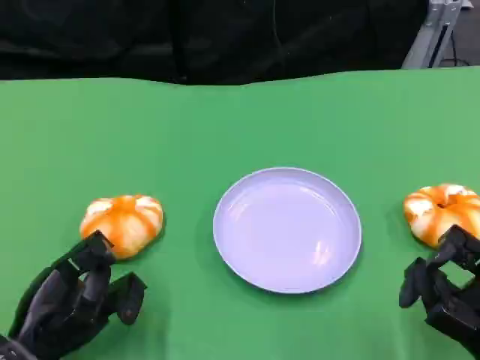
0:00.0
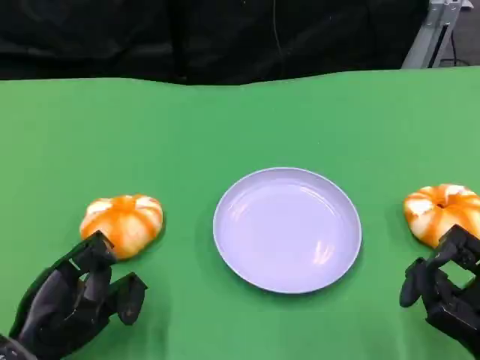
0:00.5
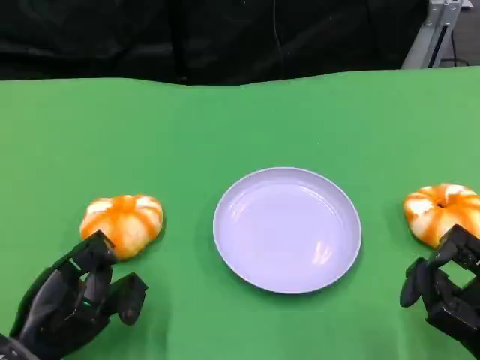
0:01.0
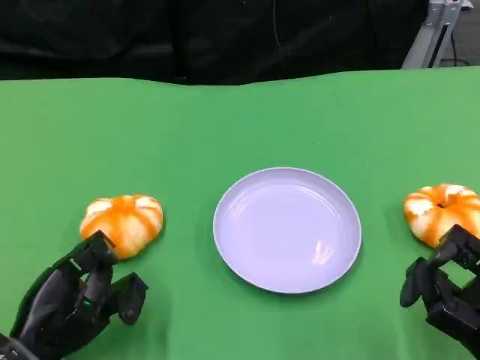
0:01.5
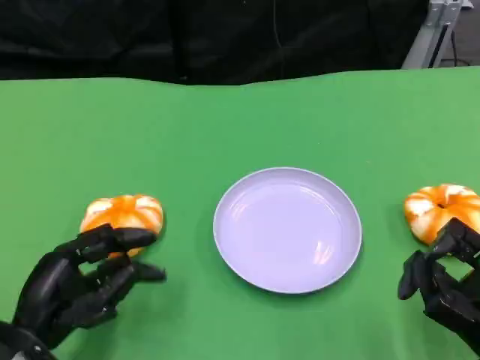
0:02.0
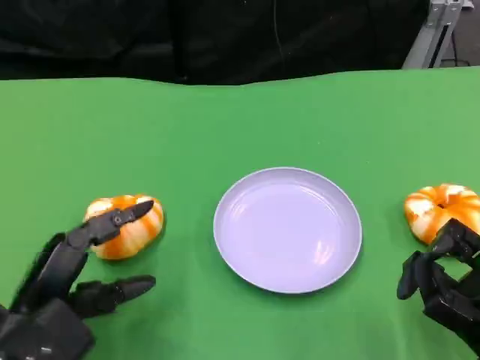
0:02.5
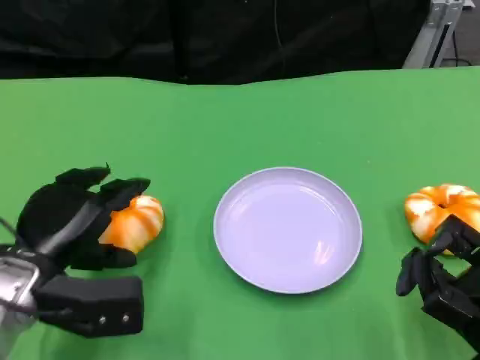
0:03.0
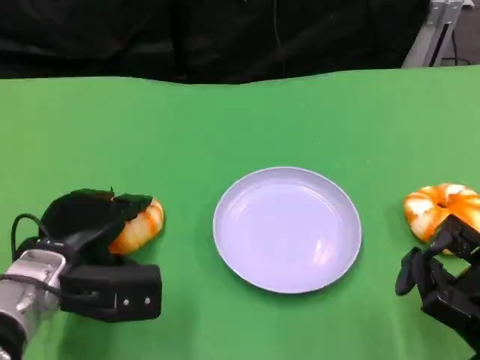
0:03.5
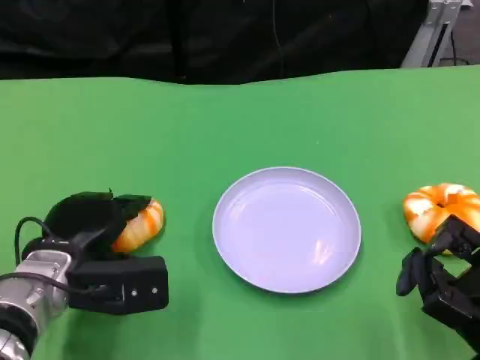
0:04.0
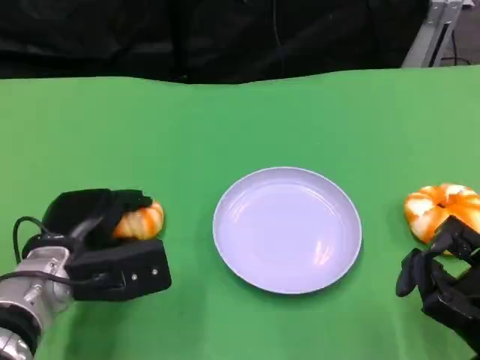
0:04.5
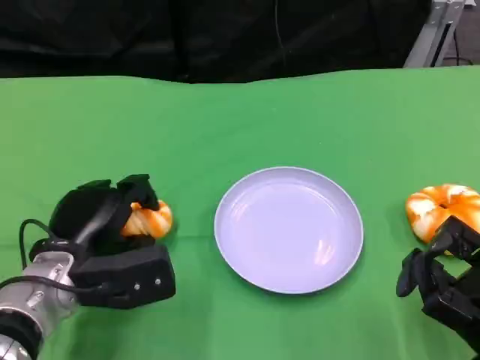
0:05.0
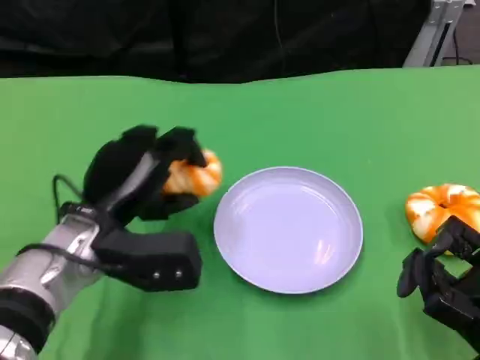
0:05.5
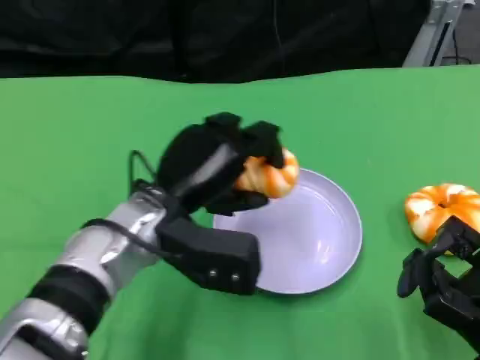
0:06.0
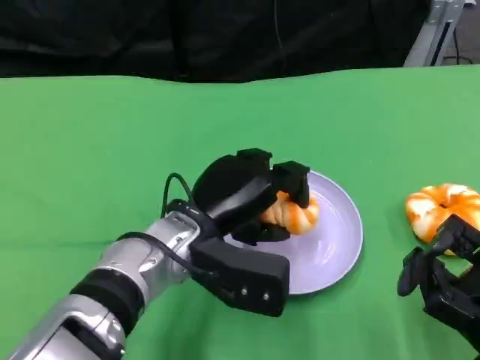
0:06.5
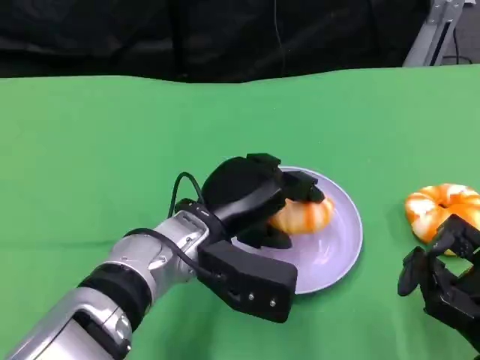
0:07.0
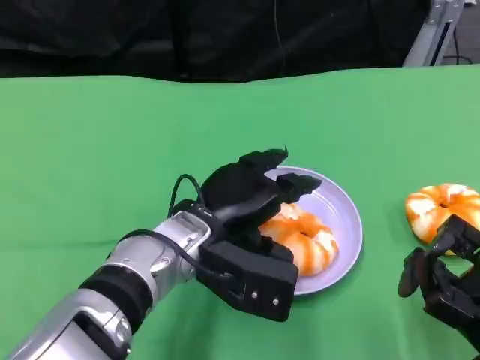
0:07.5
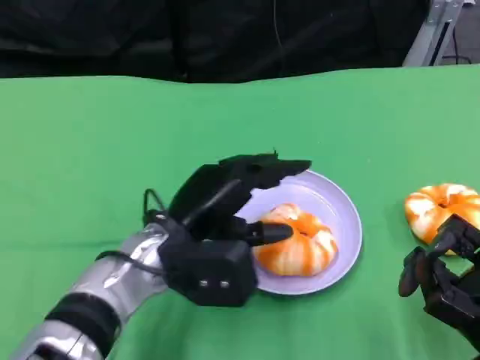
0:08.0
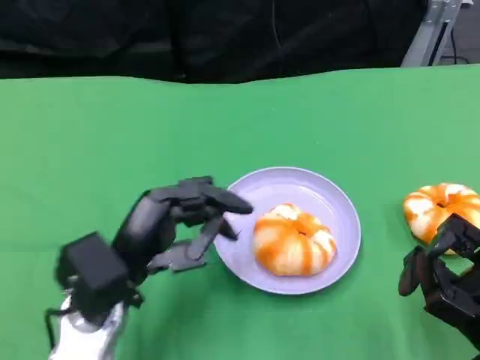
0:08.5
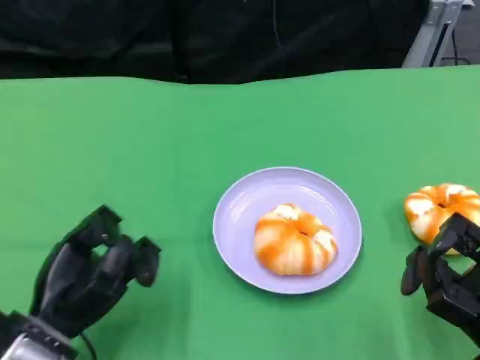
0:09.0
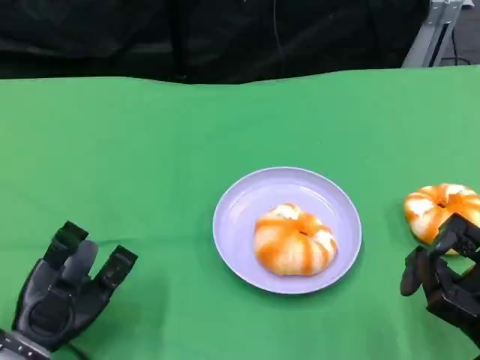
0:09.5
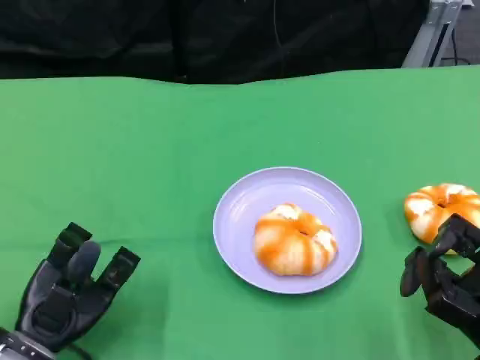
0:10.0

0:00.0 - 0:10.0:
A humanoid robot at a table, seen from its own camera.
Task of the whole recording: Grasp the bread from the table and place it into the plate.
0:02.0 - 0:04.0: The left hand heads forward, covering roughly 10 cm.
0:04.0 - 0:06.0: The left hand is displaced to the right and upward by roughly 15 cm.
0:08.0 - 0:10.0: The left hand is displaced to the left, downward and backward by some 15 cm.

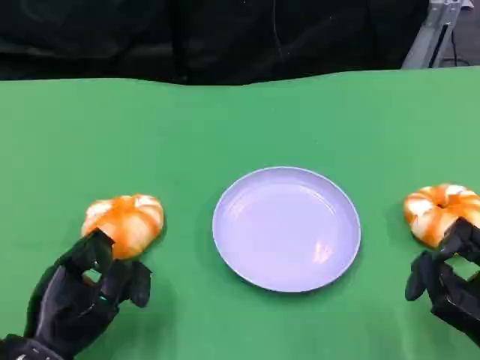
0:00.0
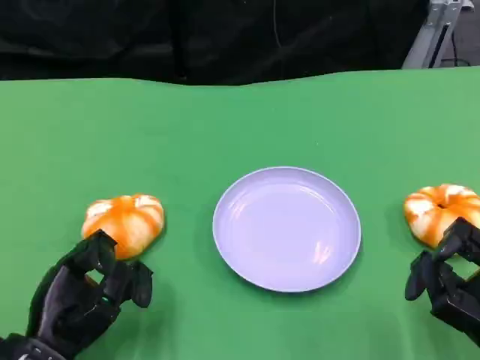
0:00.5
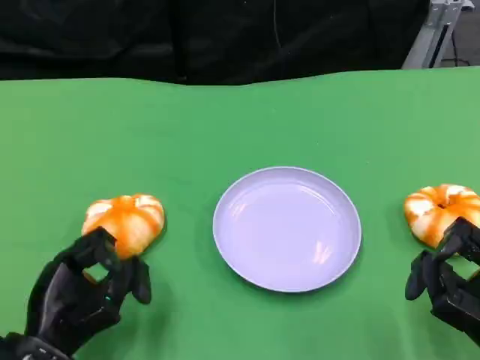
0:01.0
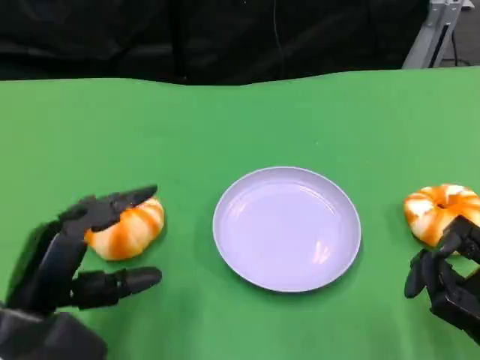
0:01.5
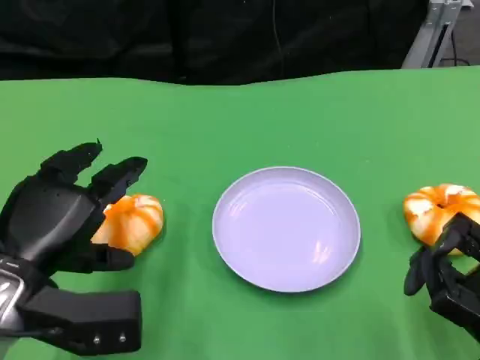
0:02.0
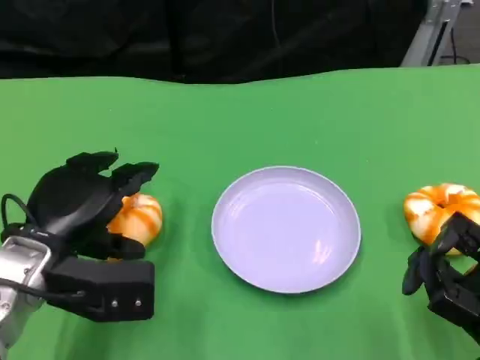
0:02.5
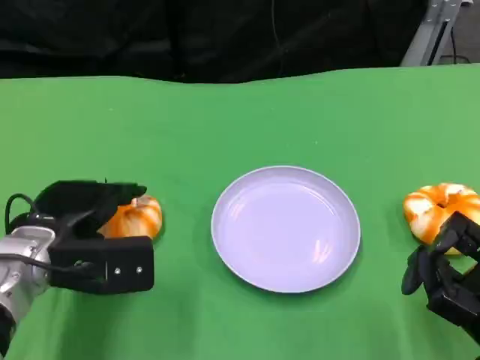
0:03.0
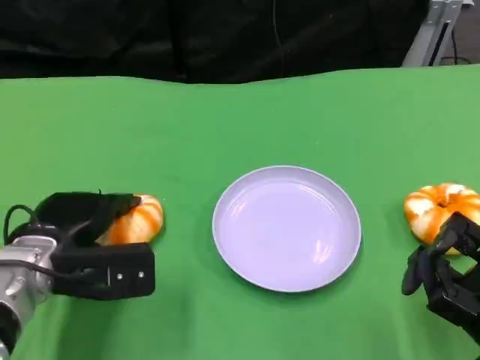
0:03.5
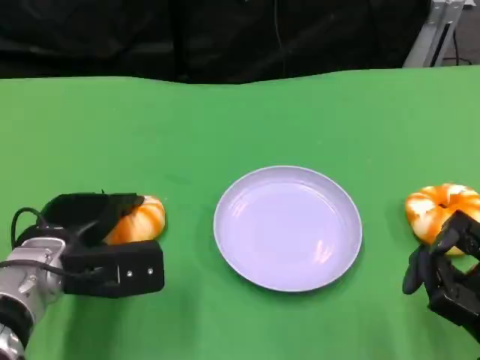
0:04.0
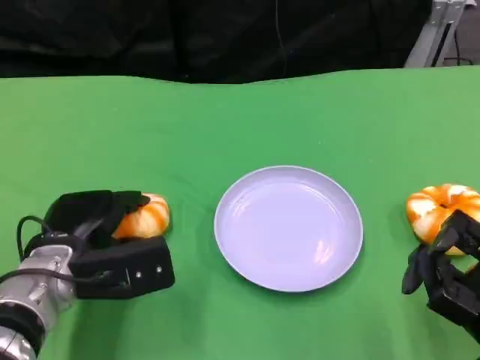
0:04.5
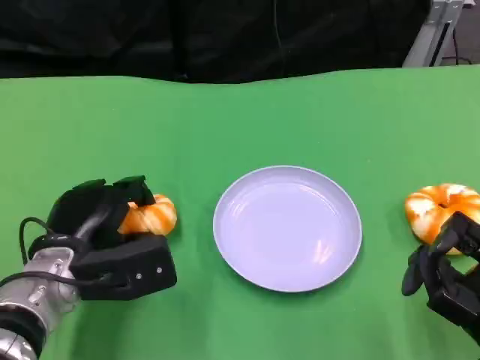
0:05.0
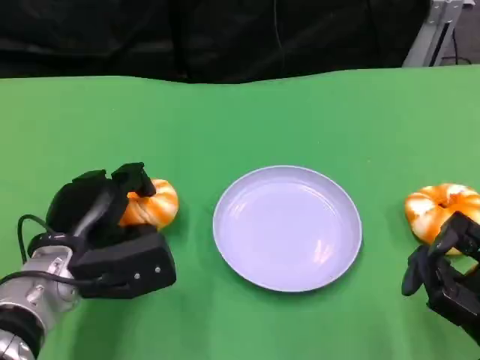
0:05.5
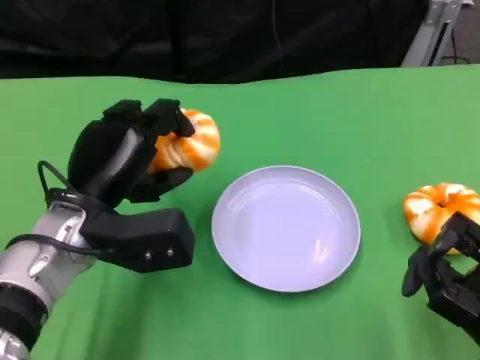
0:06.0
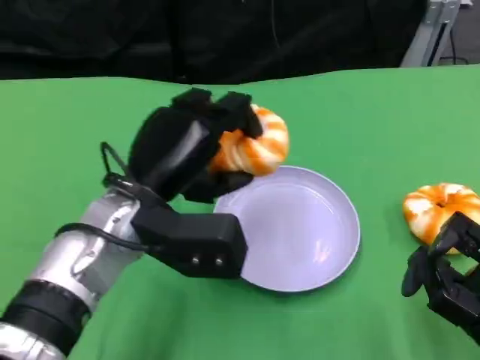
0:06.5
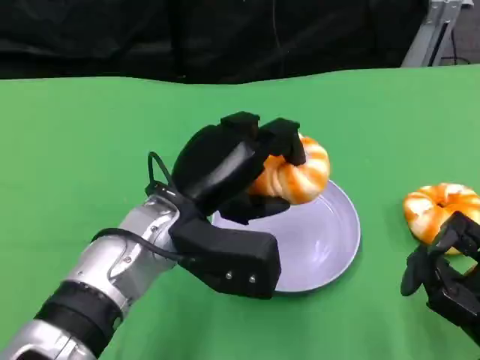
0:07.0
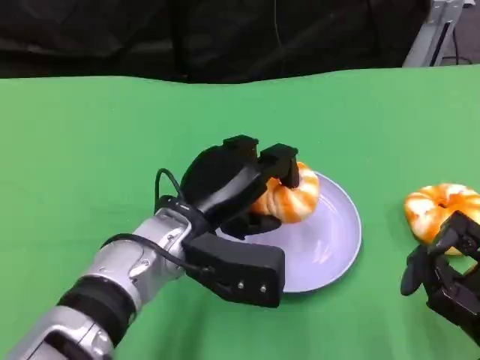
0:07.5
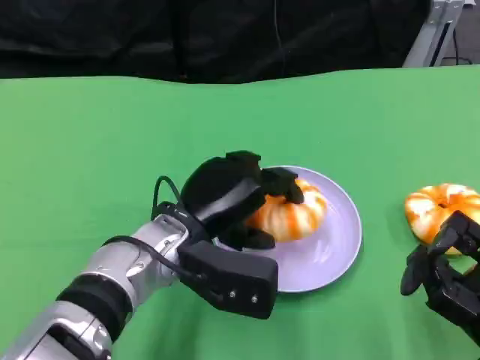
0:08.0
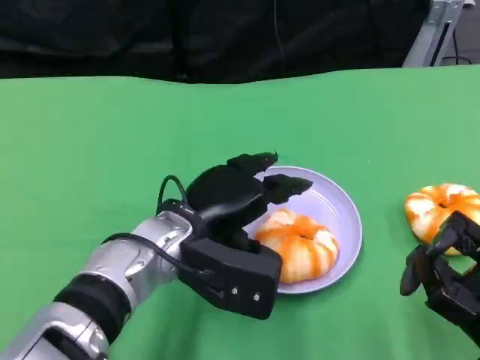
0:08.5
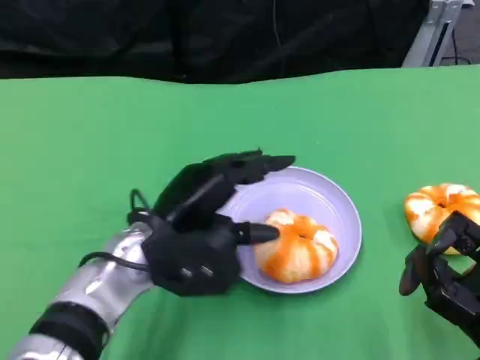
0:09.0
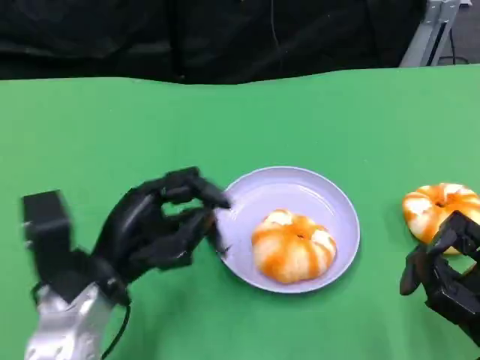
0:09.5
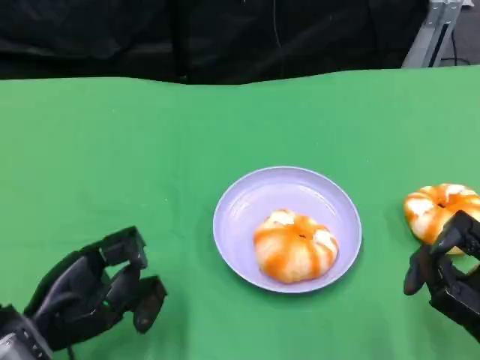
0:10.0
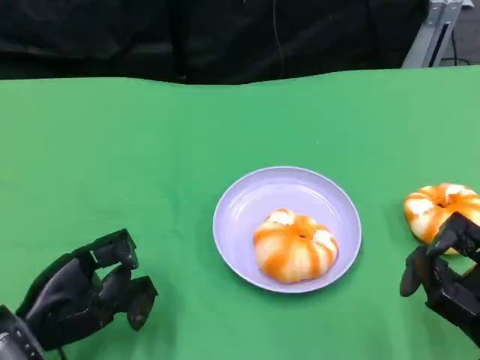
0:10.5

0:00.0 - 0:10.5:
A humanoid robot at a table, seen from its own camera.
Task of the whole recording: Grasp the bread from the table and place it into the plate.
0:00.0 - 0:02.0: The left hand heads upward, covering approximately 10 cm.
0:02.0 - 0:04.0: The left hand heads forward, covering roughly 5 cm.
0:04.0 - 0:06.5: The left hand is displaced to the right and upward by approximately 10 cm.
0:06.5 - 0:08.5: The left hand changes place by approximately 5 cm.
0:08.5 - 0:10.5: The left hand travels to the left and backward by about 20 cm.

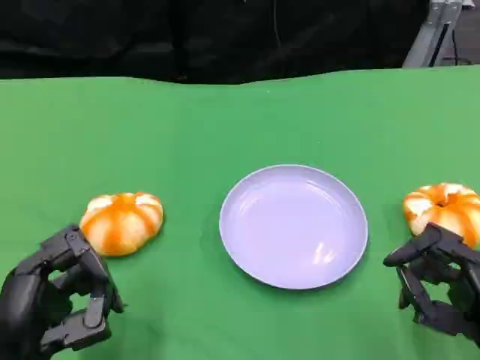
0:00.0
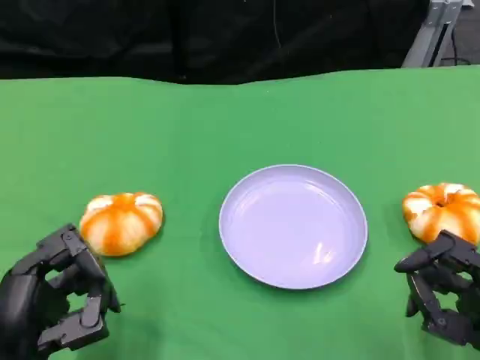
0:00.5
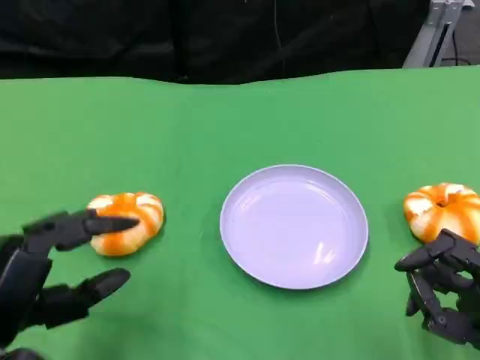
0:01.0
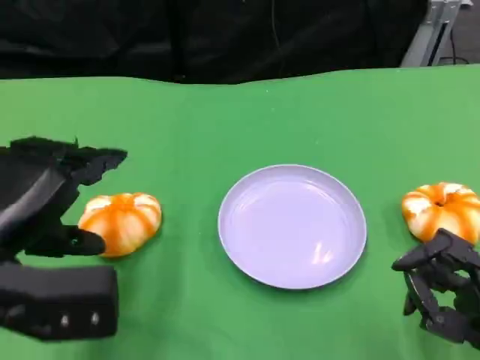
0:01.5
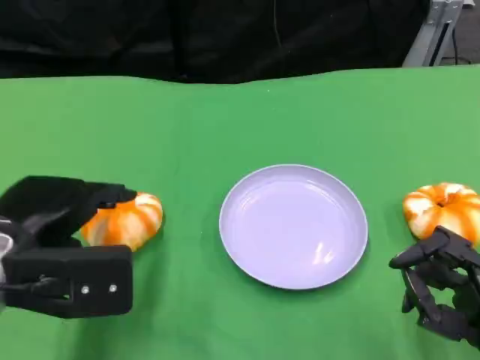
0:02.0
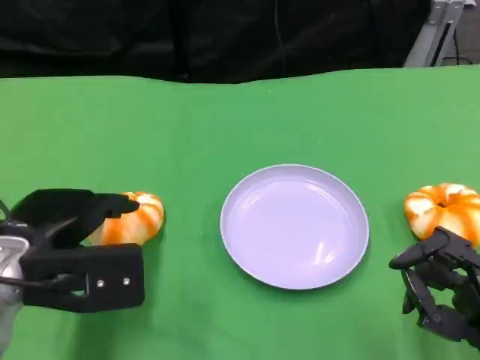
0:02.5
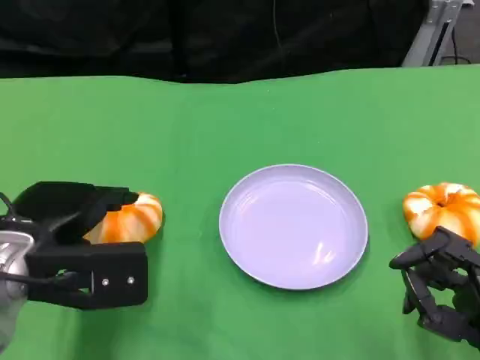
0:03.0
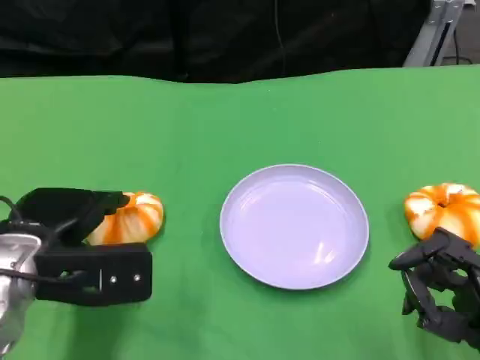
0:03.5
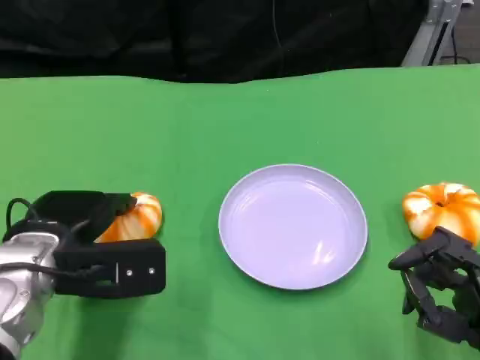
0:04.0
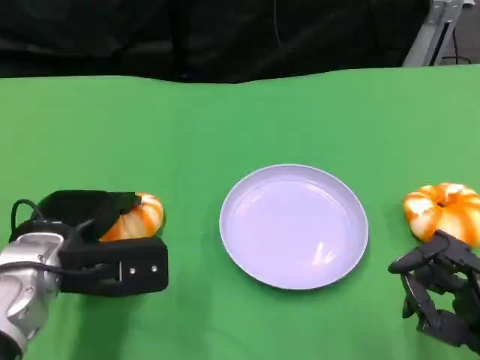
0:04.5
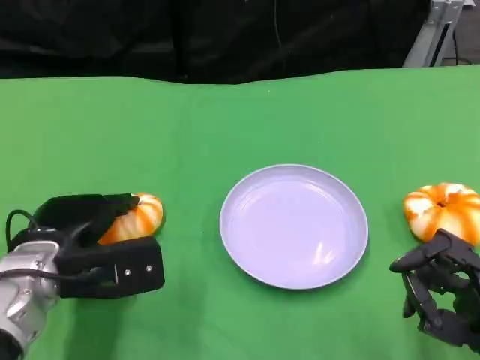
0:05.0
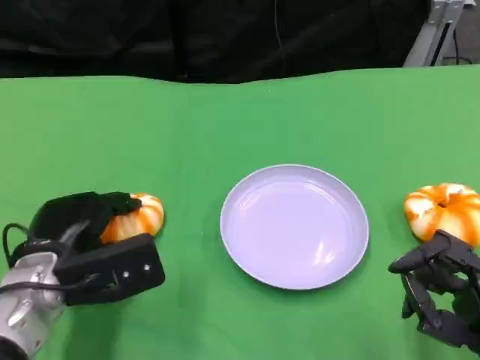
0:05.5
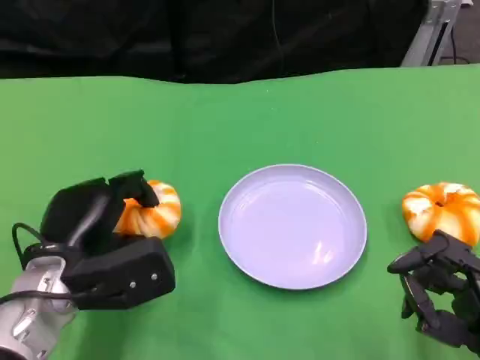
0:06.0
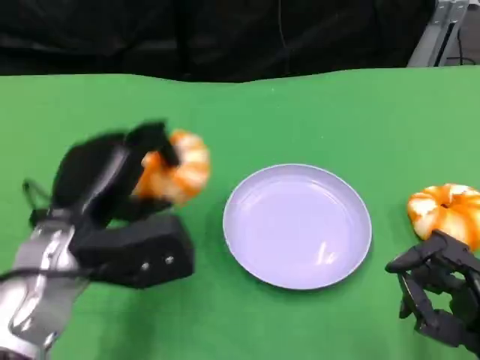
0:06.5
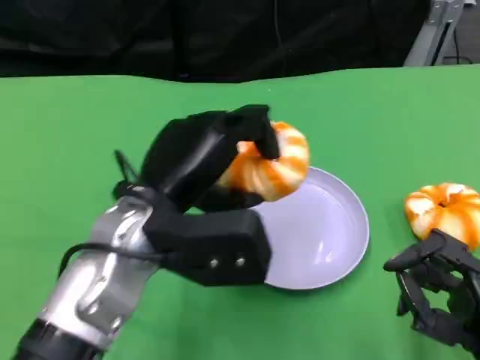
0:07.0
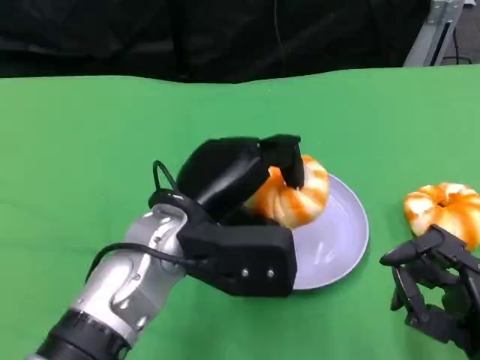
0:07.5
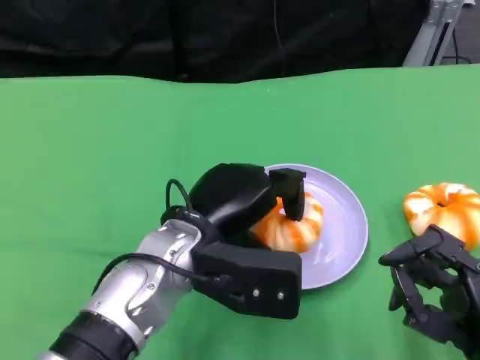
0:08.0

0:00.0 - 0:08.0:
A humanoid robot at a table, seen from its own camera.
Task of the whole recording: Grasp the bread from the table and place it into the plate.
0:00.0 - 0:02.0: The left hand shifts about 10 cm upward and forward.
0:02.0 - 0:04.0: The left hand moves roughly 5 cm.
0:06.0 - 0:08.0: The left hand moves to the right, some 10 cm.
